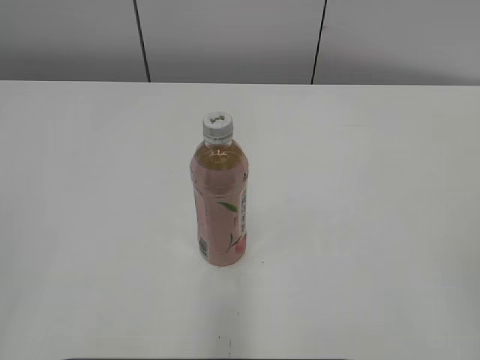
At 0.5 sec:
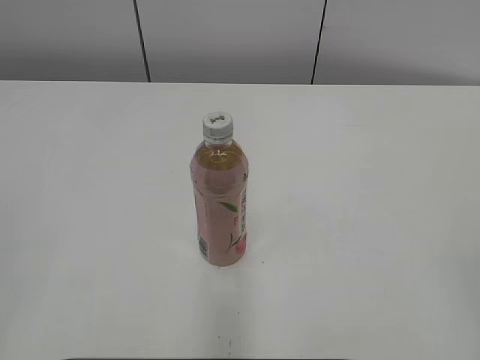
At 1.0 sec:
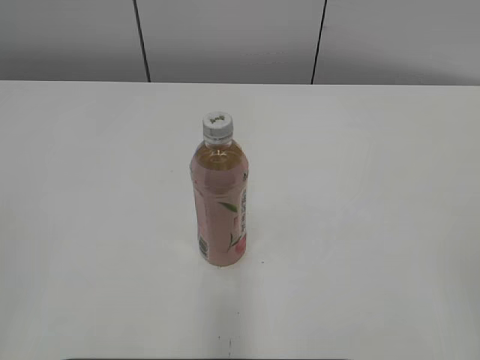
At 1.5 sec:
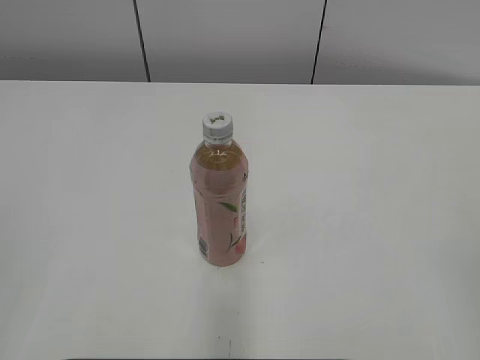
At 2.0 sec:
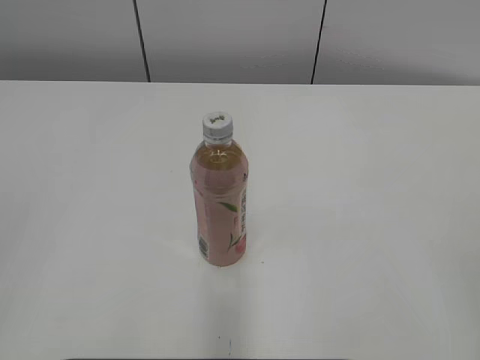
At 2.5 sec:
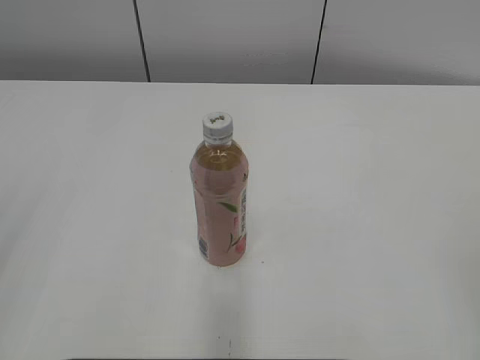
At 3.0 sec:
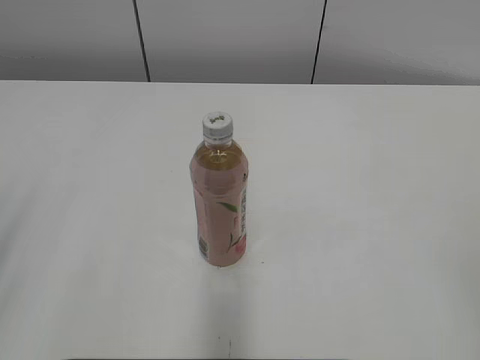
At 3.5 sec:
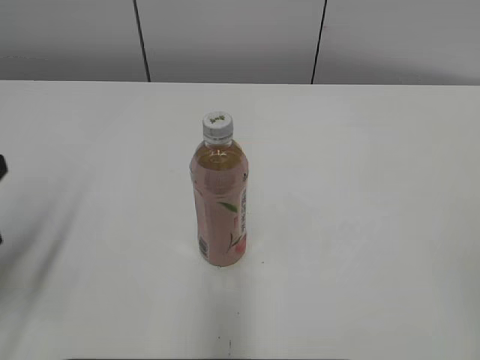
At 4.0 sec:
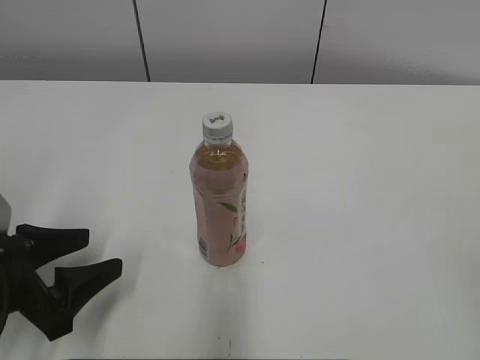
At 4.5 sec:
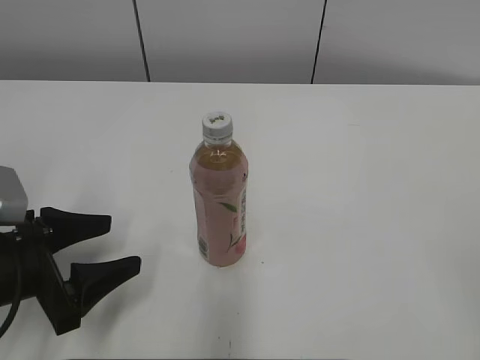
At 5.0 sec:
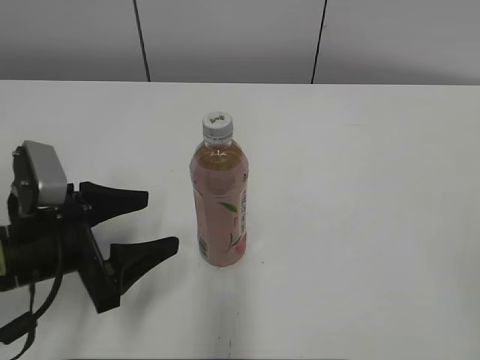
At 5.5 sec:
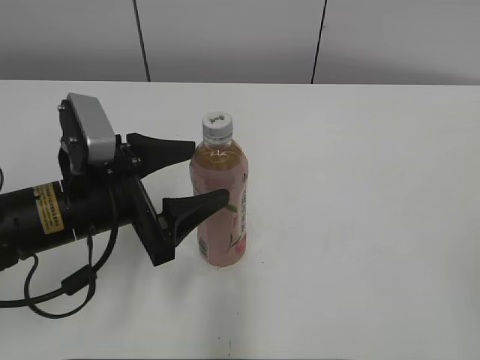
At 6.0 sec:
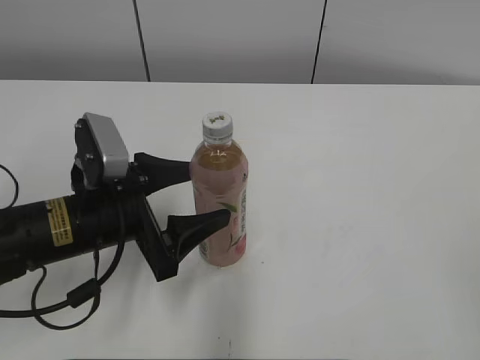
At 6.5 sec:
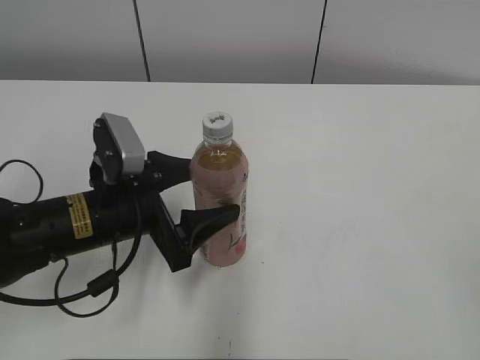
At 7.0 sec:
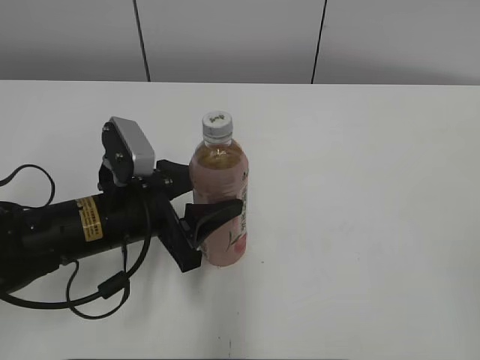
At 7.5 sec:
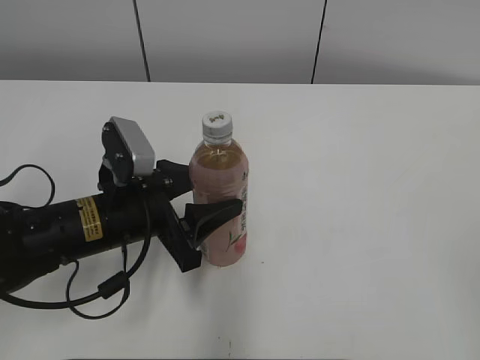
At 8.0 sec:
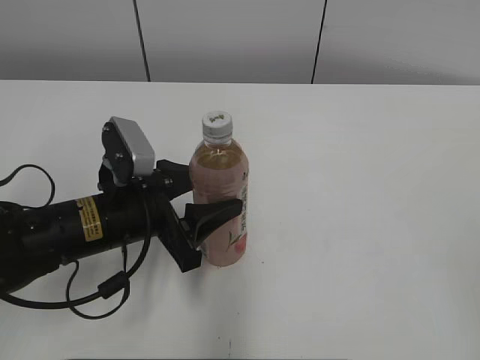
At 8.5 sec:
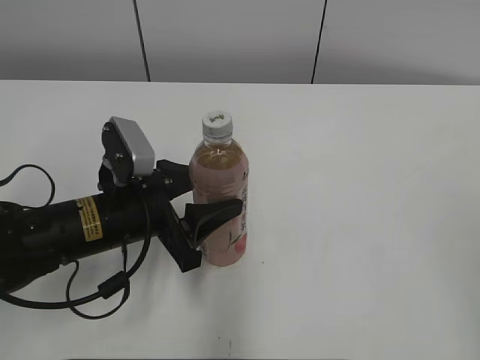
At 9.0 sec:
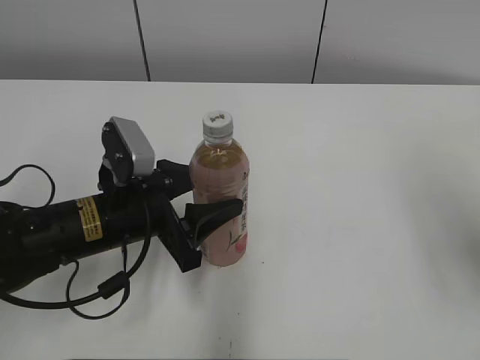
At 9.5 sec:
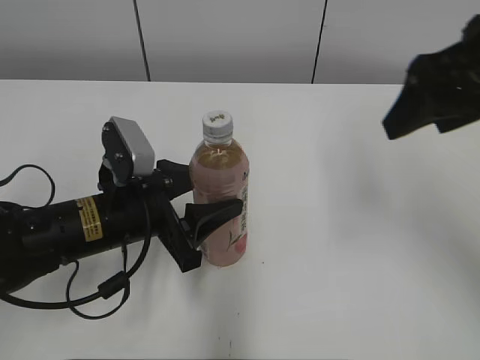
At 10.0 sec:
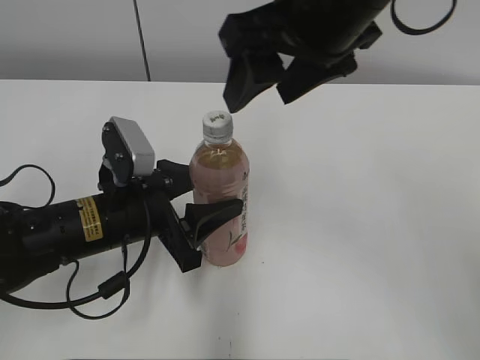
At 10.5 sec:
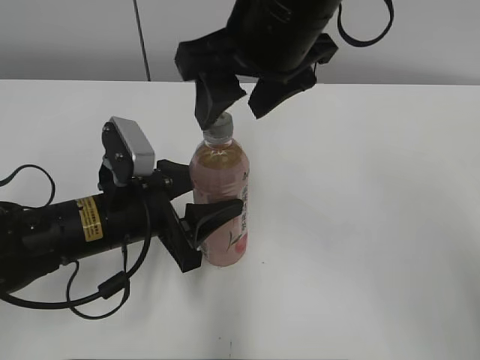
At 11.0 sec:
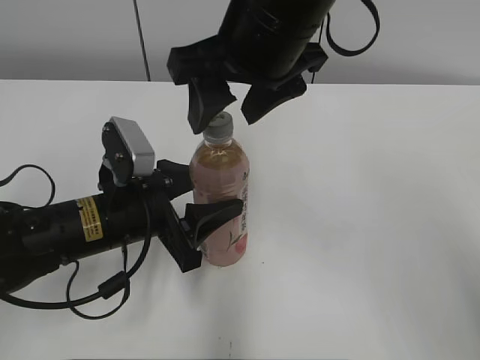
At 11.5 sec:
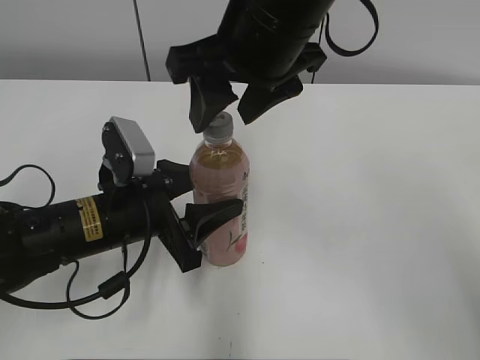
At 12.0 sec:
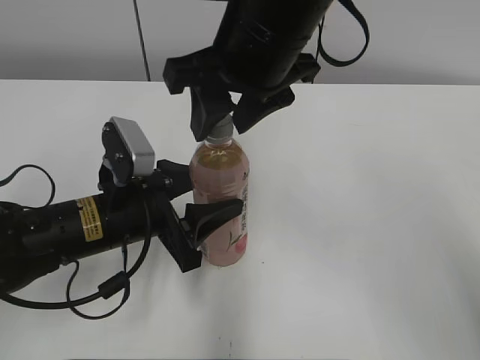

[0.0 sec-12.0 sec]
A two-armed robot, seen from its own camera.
Step, 0.0 sec to 7.0 sec: Grasp the bottle and move it to the center of the table with the left gripper.
2.0 sec to 4.0 sec: The left gripper travels downward and forward by approximately 25 cm, and opens its fingers.
4.0 sec to 6.0 sec: The left gripper travels to the right and forward by some 10 cm.
6.0 sec to 8.0 sec: The left gripper closes up.
8.0 sec to 10.0 sec: The right gripper shifts roughly 35 cm forward and to the left.
10.0 sec to 12.0 sec: The right gripper changes place by roughly 5 cm.

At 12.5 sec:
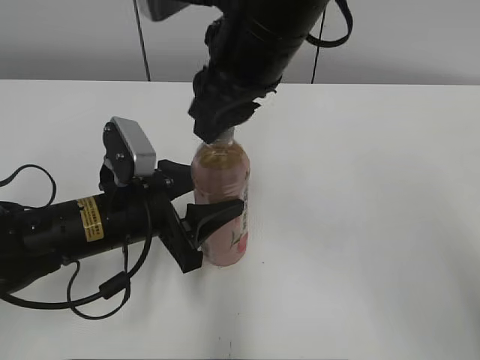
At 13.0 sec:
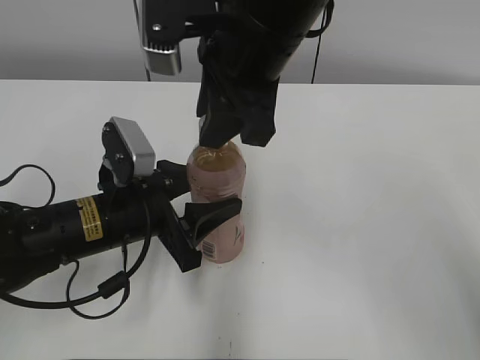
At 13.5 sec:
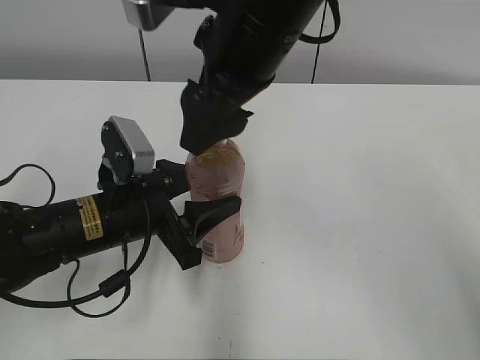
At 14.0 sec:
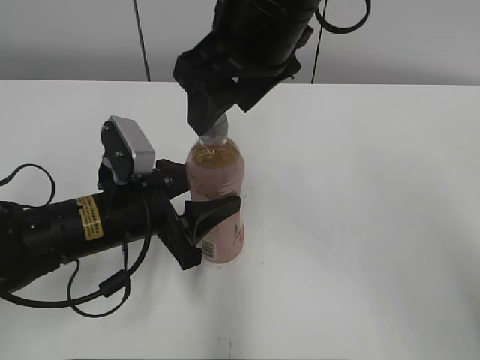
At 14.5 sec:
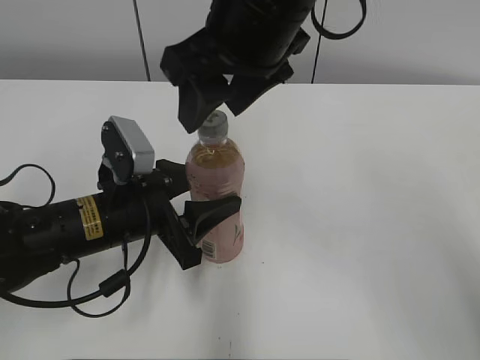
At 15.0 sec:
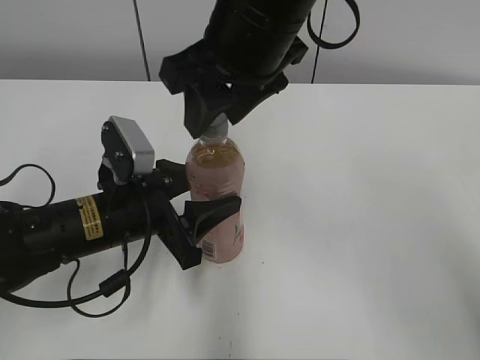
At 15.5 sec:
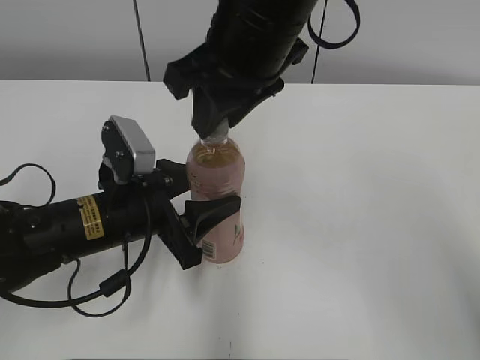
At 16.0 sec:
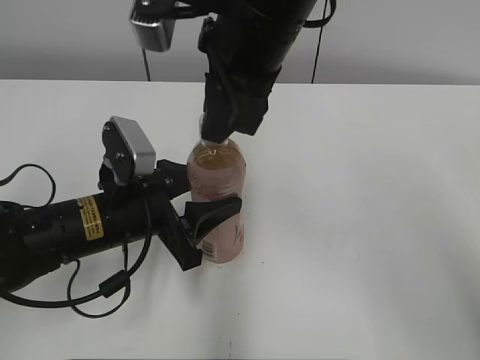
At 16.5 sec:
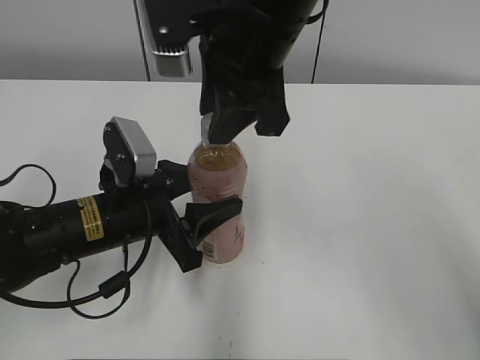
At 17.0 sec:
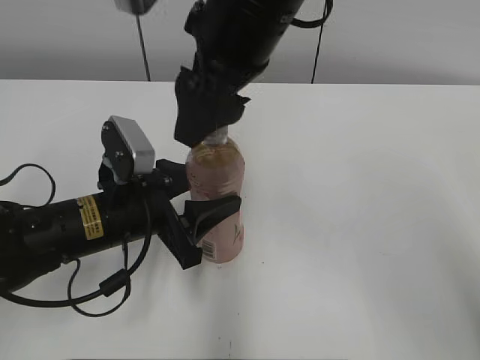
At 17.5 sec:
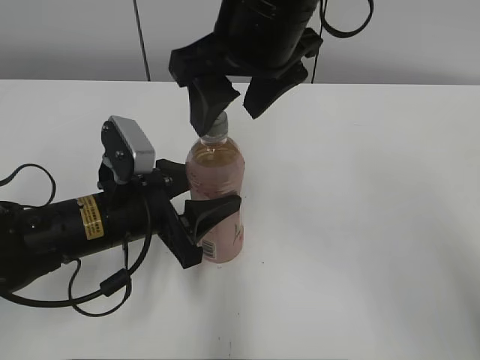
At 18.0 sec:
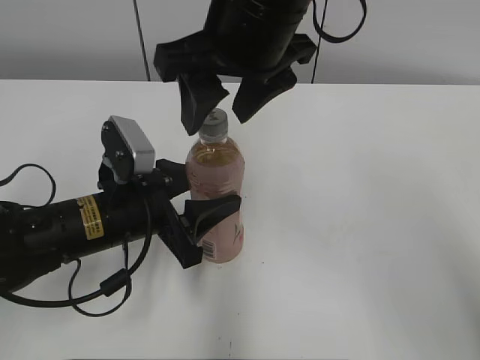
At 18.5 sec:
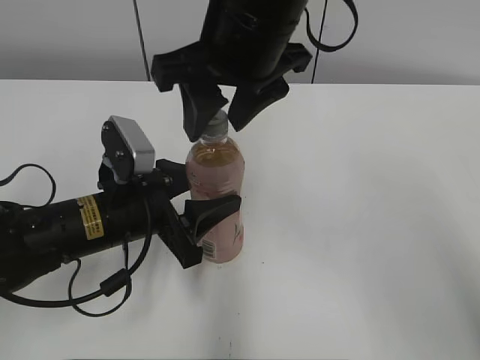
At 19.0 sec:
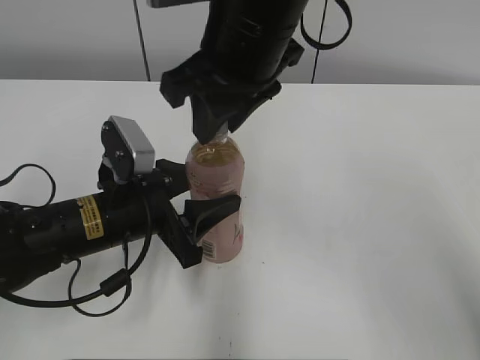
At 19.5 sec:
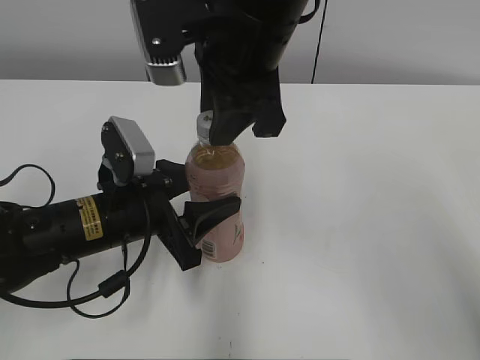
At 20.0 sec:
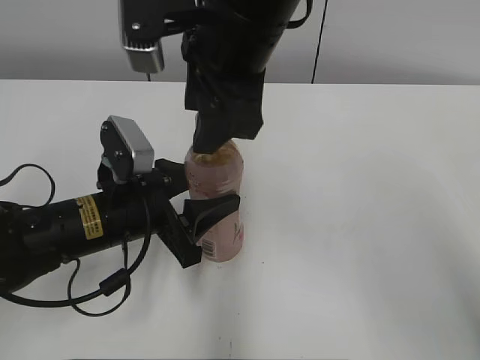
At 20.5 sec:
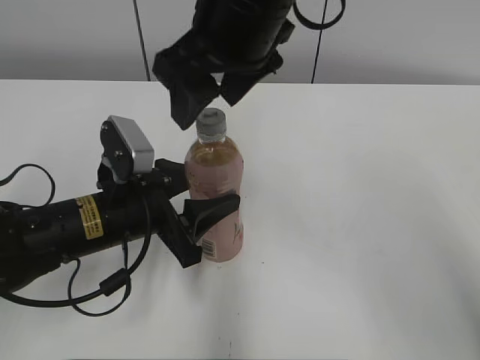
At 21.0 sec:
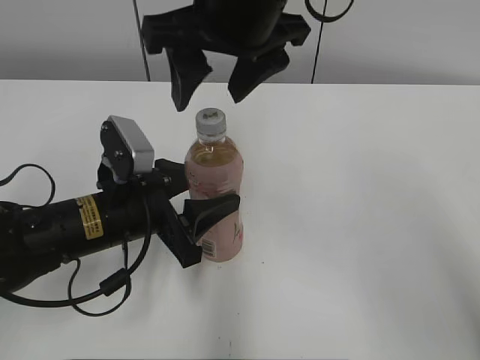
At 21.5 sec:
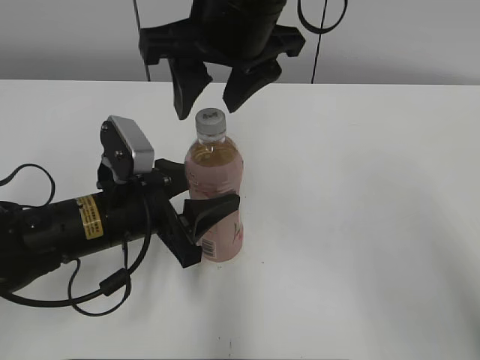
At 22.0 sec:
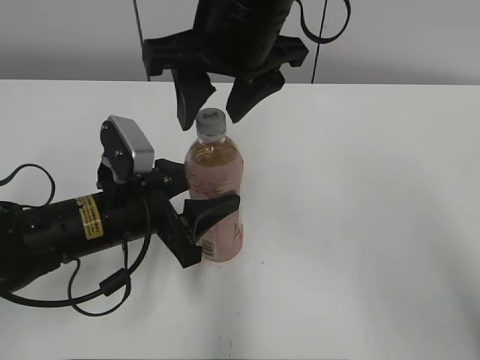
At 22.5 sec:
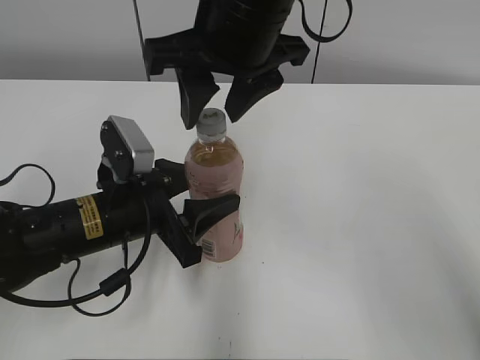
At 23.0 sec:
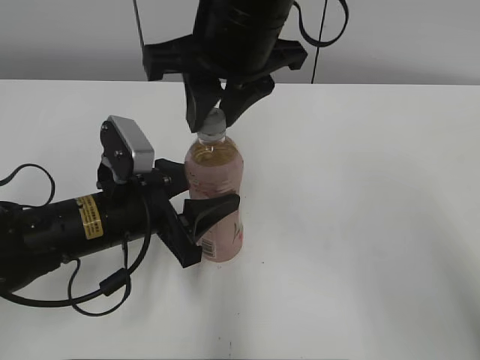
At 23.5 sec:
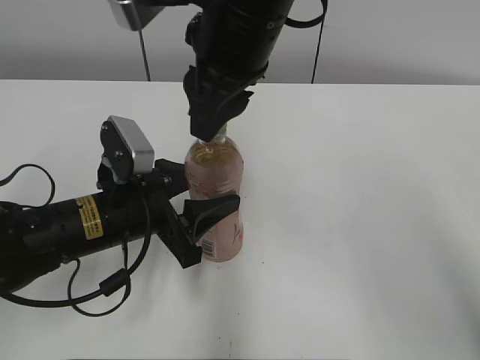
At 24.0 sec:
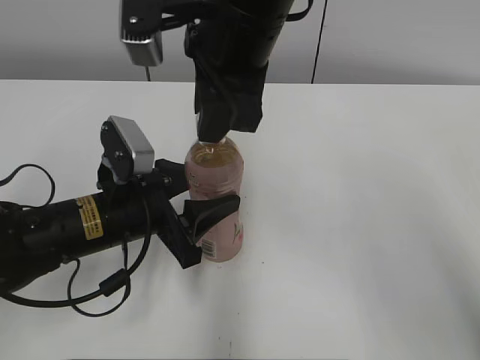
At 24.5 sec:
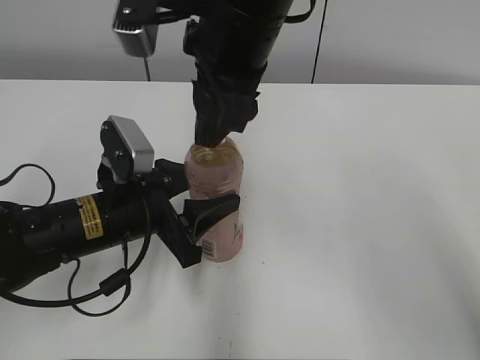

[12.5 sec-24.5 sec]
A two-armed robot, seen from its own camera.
12.5 sec to 14.5 sec: The right gripper opens up.
14.5 sec to 16.5 sec: The right gripper closes.
16.5 sec to 18.5 sec: The right gripper opens up.
18.5 sec to 20.5 sec: The right gripper opens up.
20.5 sec to 22.5 sec: The right gripper closes up.

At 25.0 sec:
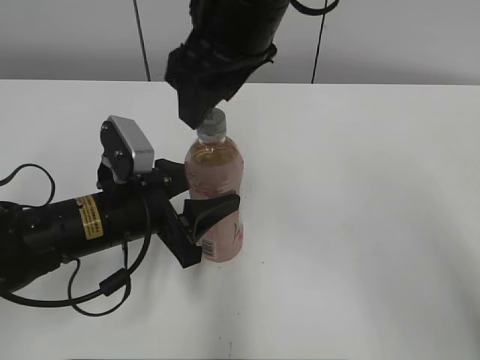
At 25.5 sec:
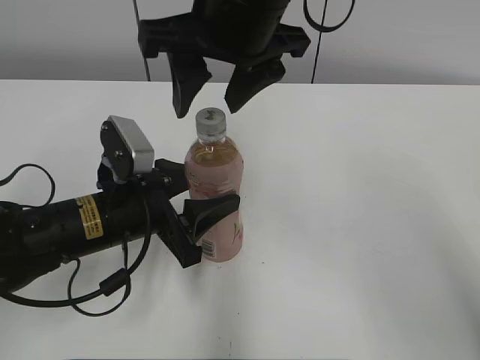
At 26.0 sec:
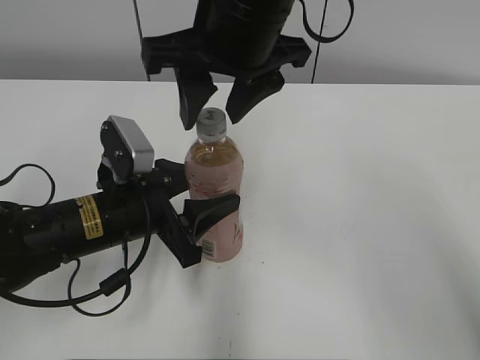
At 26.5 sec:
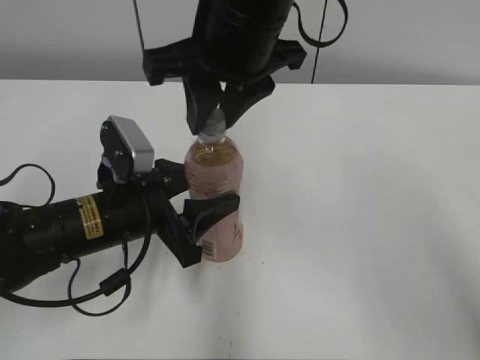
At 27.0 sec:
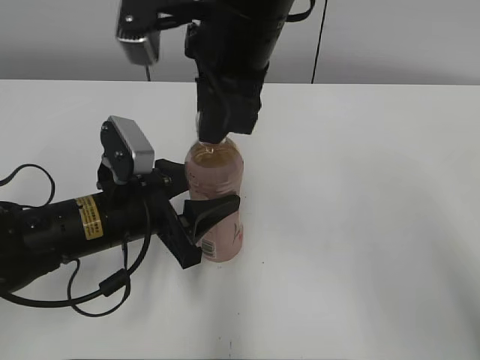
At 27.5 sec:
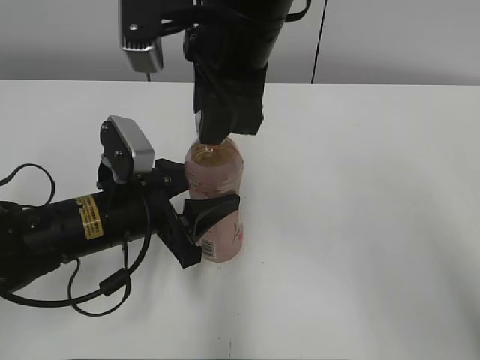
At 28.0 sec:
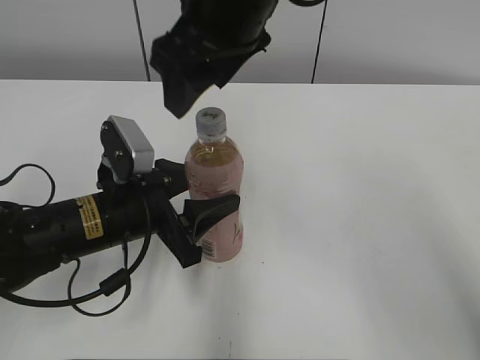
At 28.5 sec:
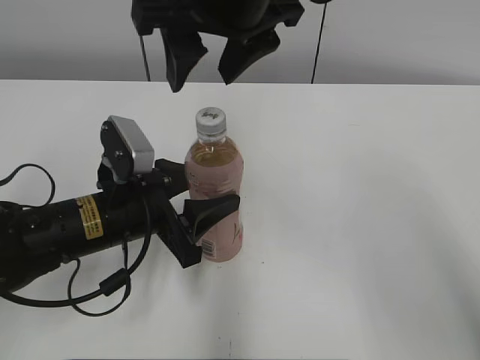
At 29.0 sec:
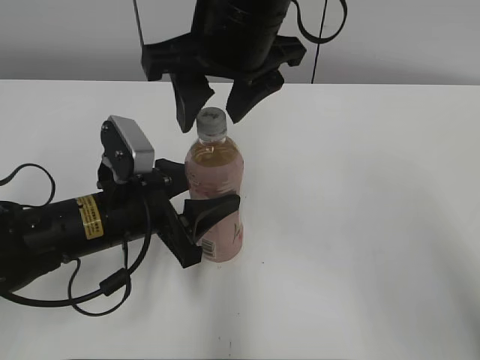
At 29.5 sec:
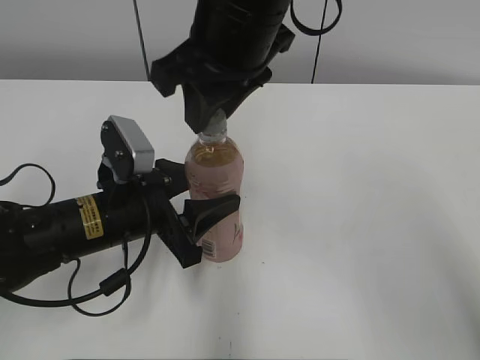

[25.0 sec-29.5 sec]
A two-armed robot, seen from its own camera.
25.0 sec to 27.0 sec: The right gripper closes up.
27.0 sec to 29.5 sec: The right gripper opens, then closes once more.
